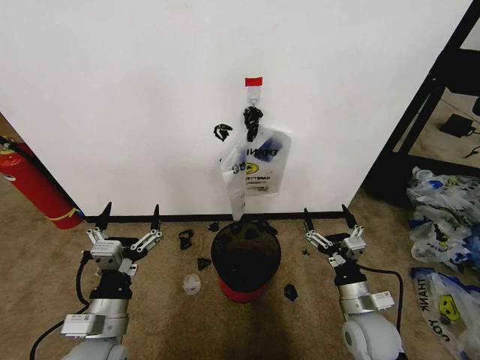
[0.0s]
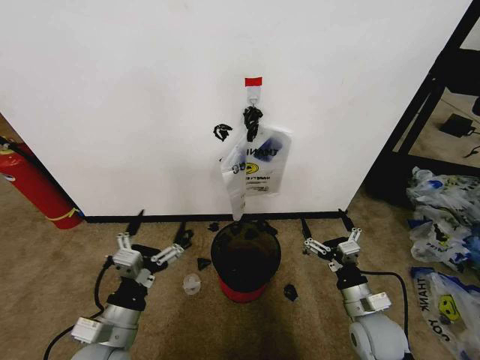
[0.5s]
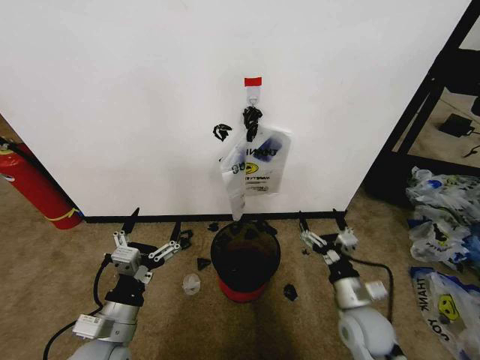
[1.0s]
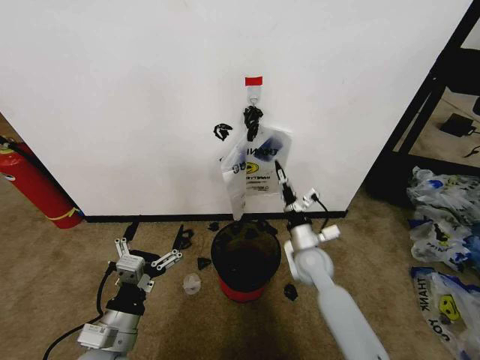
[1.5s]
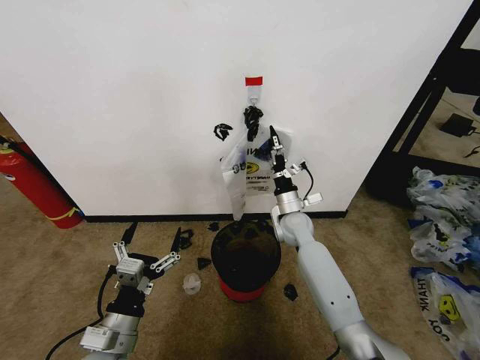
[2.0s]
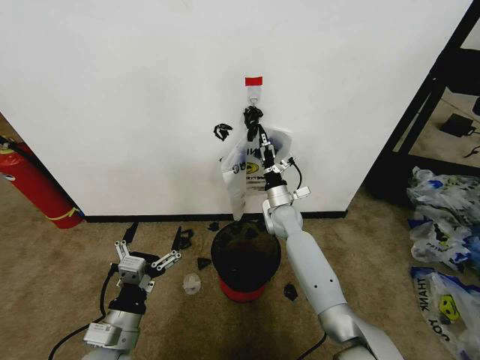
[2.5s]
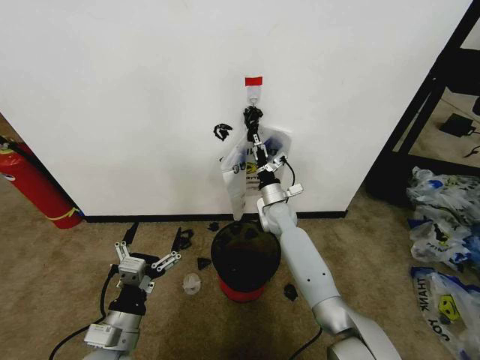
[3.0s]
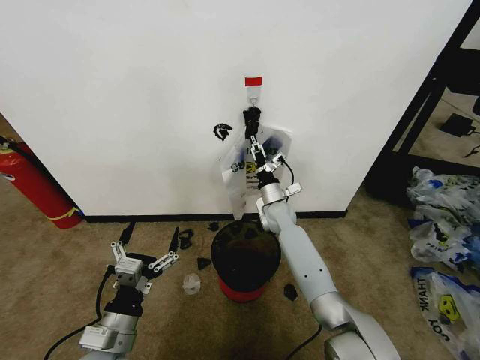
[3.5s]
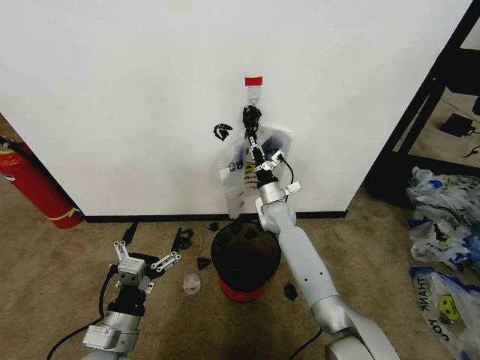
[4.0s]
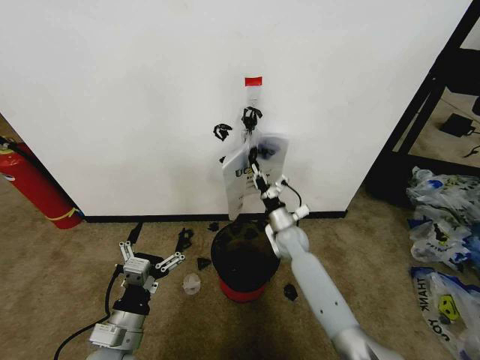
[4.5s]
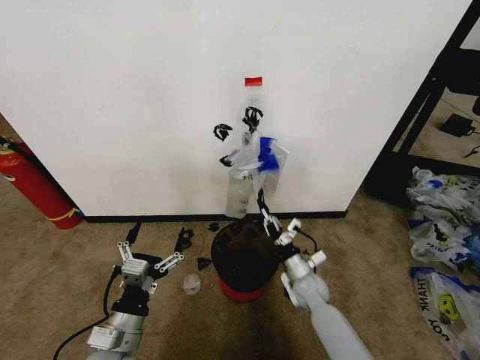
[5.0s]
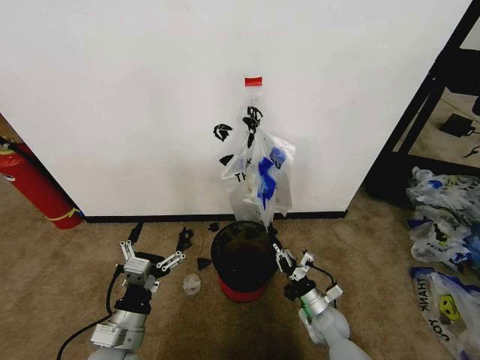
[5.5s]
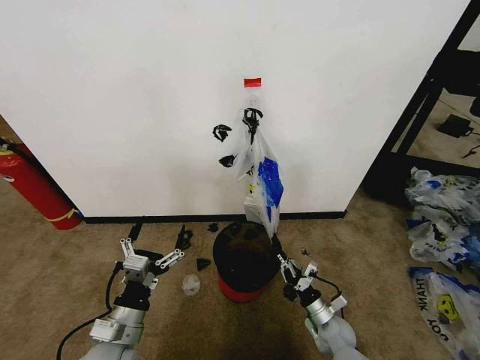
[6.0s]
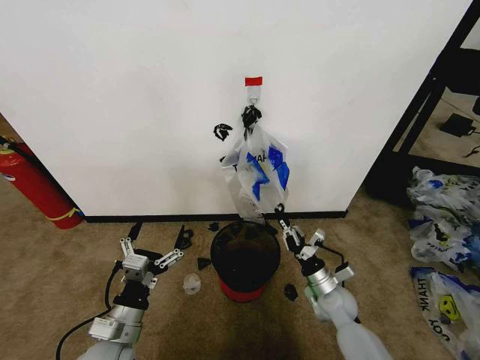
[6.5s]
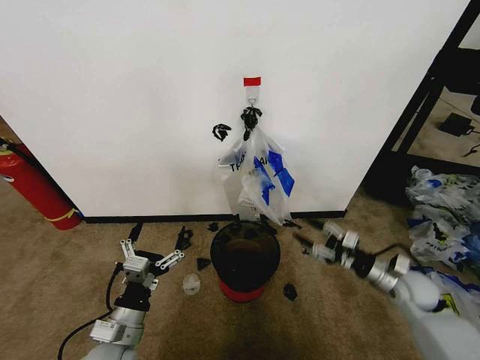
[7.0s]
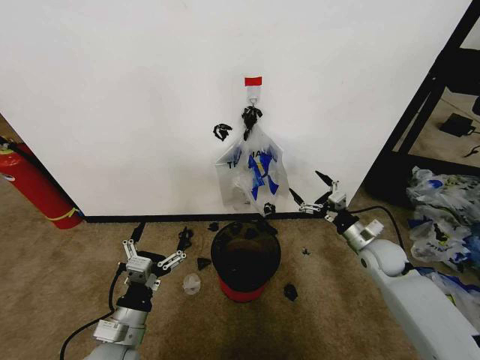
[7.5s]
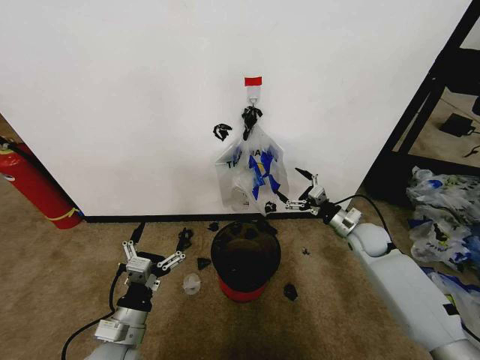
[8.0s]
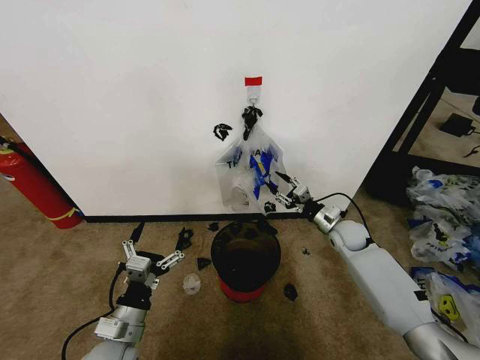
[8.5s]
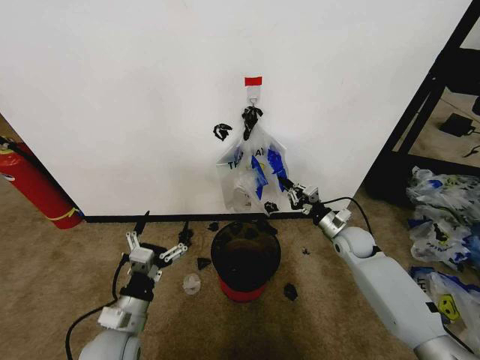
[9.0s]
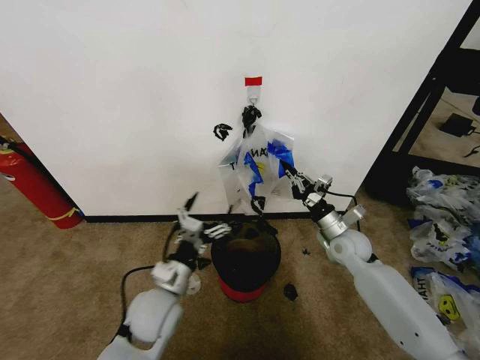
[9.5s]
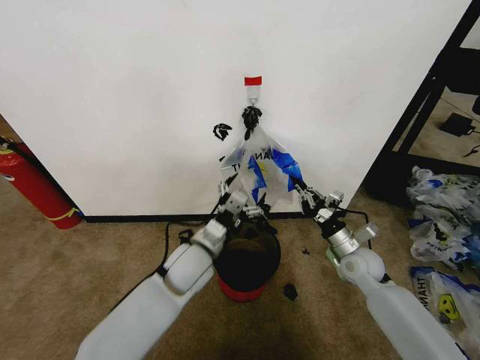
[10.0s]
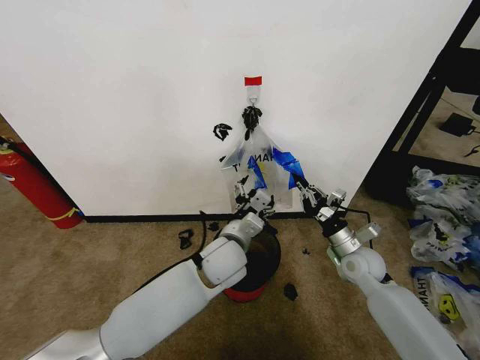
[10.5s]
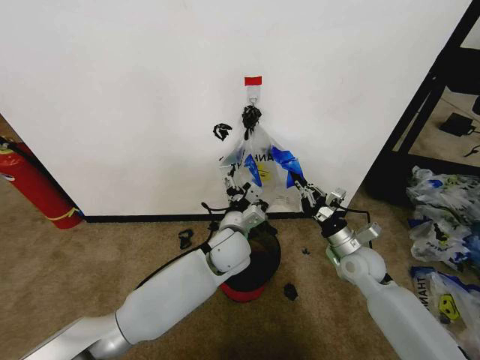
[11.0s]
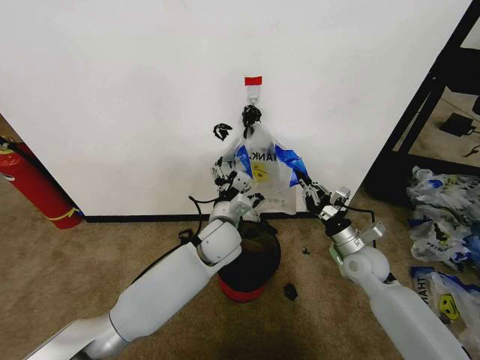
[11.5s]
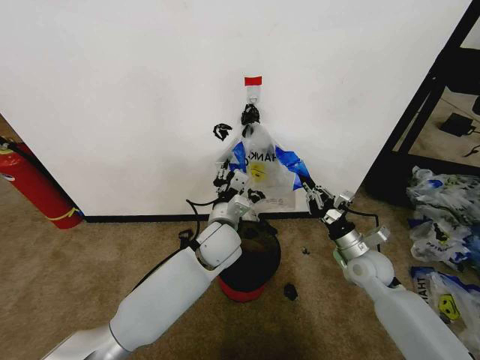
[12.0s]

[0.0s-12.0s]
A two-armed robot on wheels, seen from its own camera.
Task of the whole recording: Pick up the garbage bag from the wall and place it over the trash bin.
2.0s to 4.0s: The right gripper ends up some 5 cm from where it was, and closes.
4.0s to 6.0s: The right gripper heads backward, downward and to the right, covering roughly 35 cm.
6.0s to 8.0s: The right gripper moves upward and forward, some 25 cm, and opens up.
8.0s to 10.0s: The right gripper is displaced backward by some 5 cm, and closes its fingers; the left gripper goes roughly 20 cm forward and to the right.
10.0s to 12.0s: The left gripper travels to the right by roughly 5 cm, and closes its fingers.

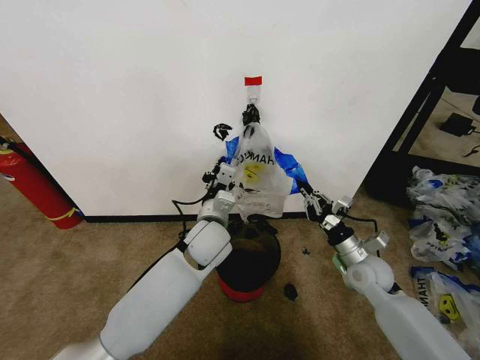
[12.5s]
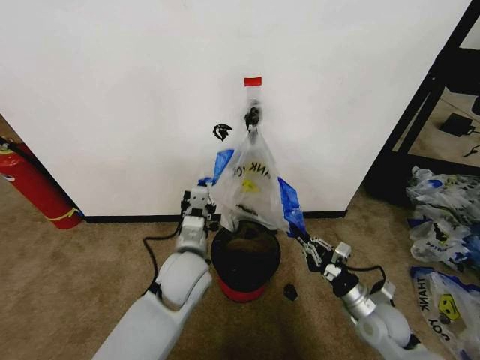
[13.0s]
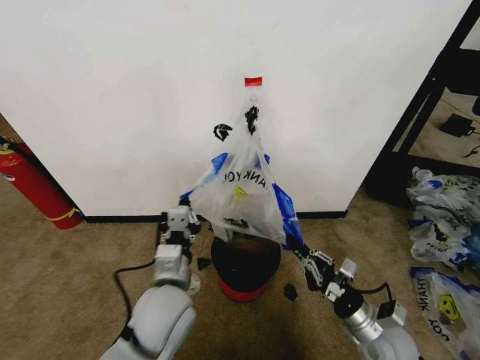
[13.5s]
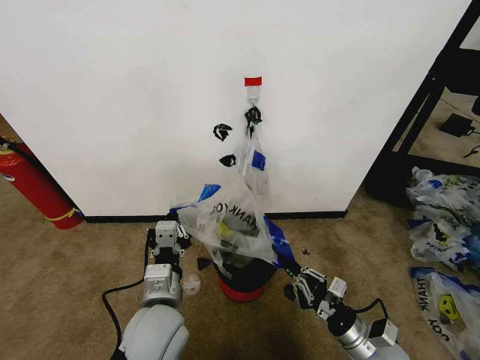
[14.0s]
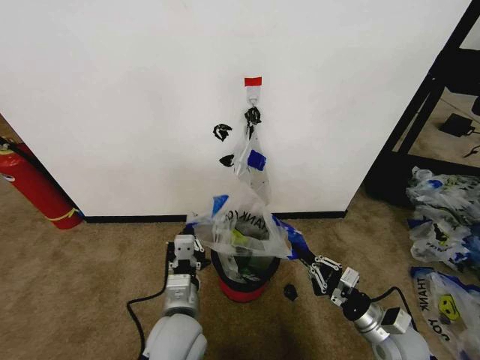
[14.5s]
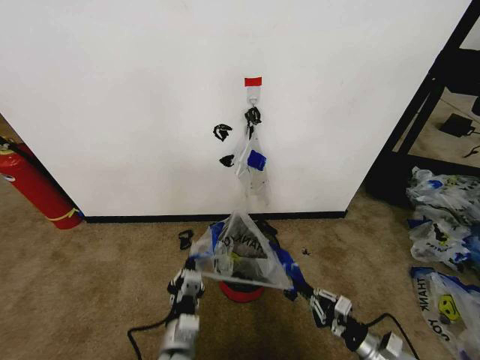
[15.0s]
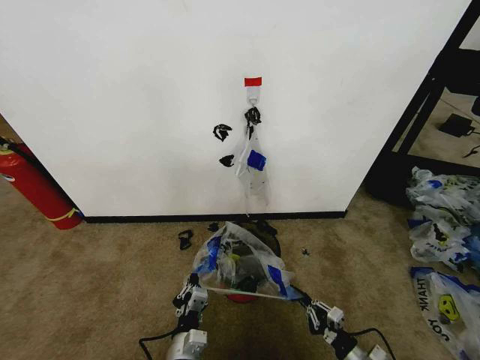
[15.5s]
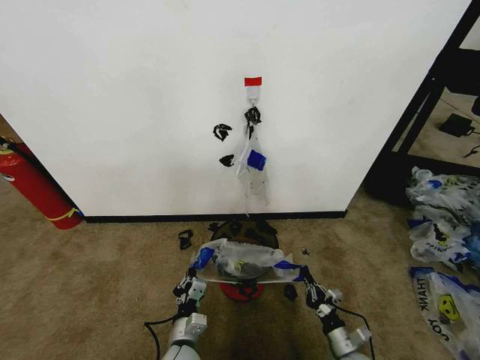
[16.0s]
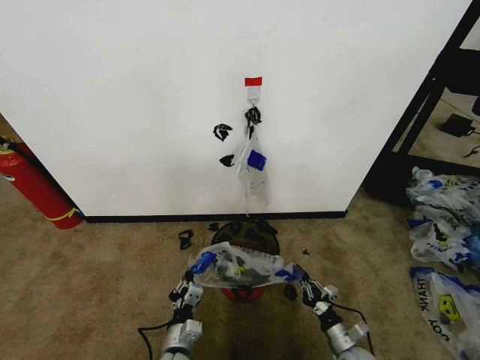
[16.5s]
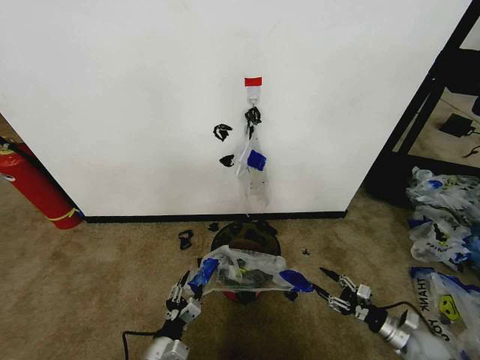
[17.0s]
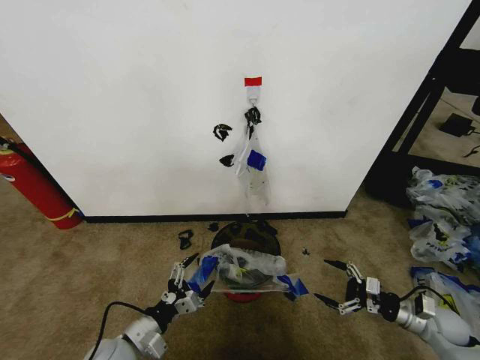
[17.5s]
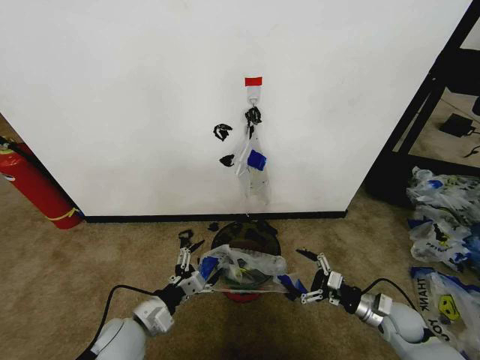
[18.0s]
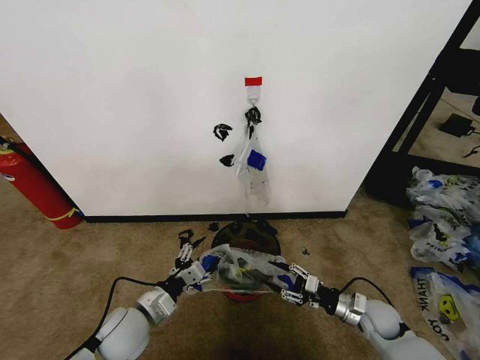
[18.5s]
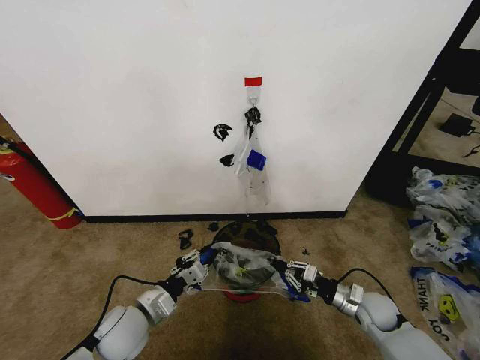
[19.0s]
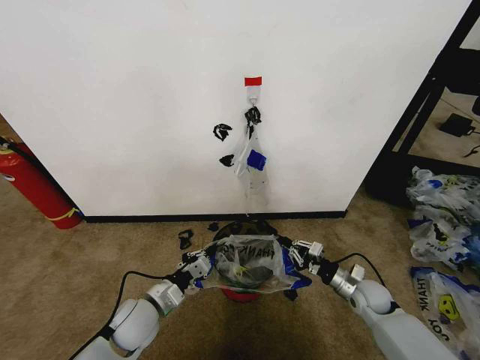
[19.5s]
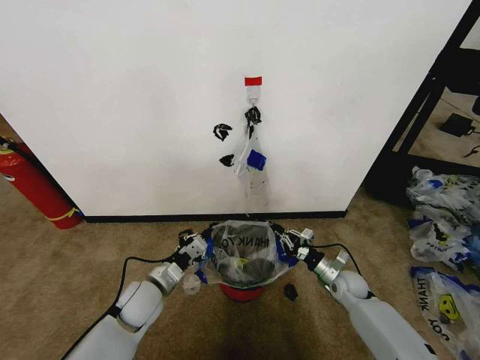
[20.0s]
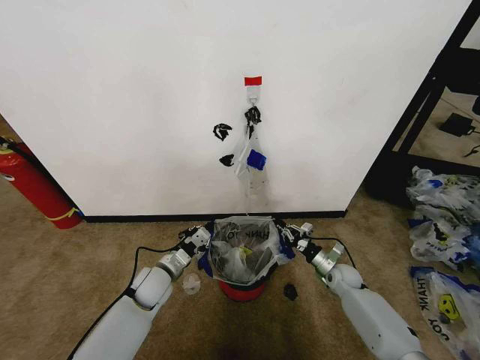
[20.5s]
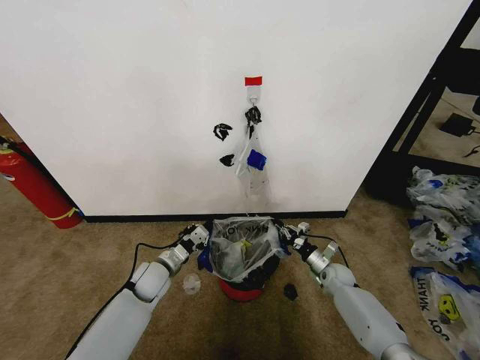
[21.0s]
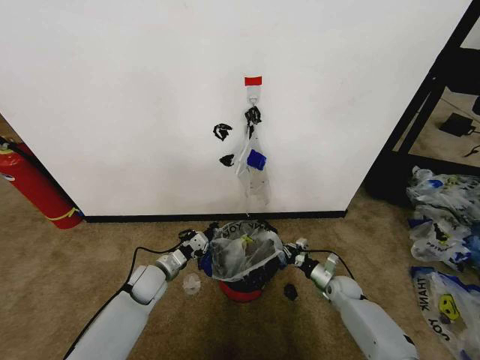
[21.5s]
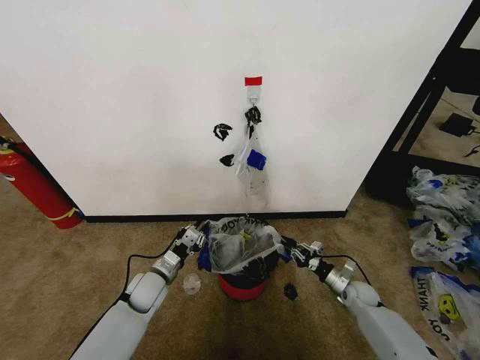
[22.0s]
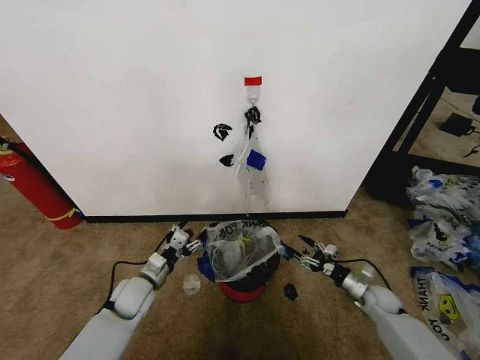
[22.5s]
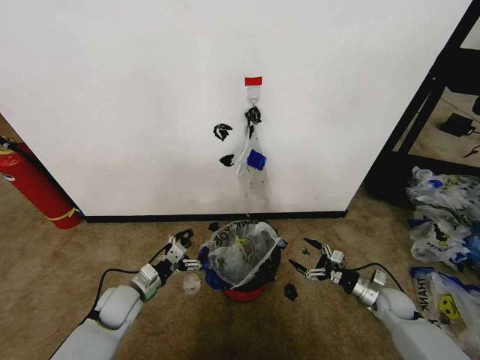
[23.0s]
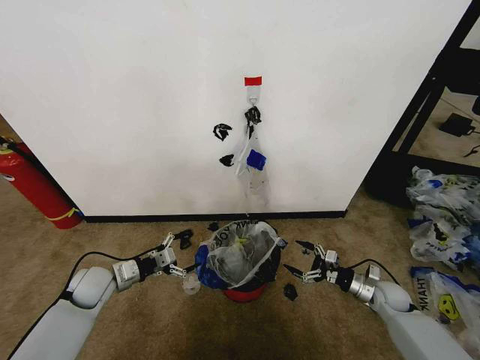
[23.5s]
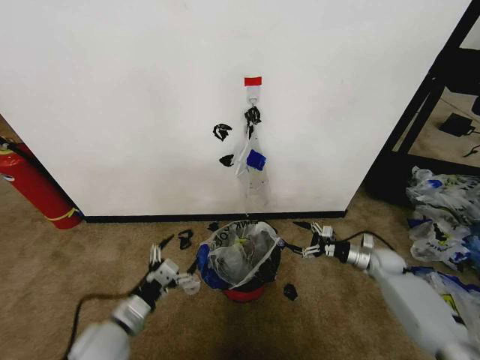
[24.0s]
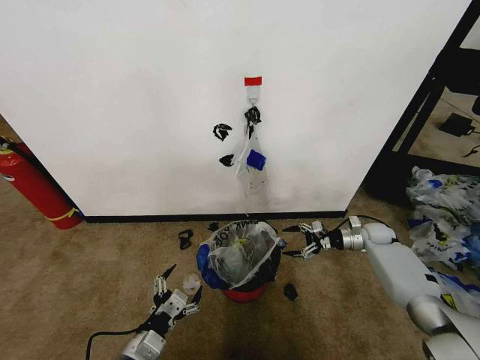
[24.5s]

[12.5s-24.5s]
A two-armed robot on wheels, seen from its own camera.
Task of the whole recording: Pick up the garbage bag from the wall and place it over the trash bin.
12.5s to 14.5s: The grippers both shift backward by approximately 15 cm.
14.5s to 16.5s: Both grippers move downward, some 15 cm.
16.5s to 18.5s: The right gripper heads upward and forward, covering about 15 cm, moves roughly 15 cm to the right and comes back, and opens up. The left gripper travels upward, to the left and forward by some 15 cm, and opens its fingers.
18.5s to 20.5s: The grippers both shift forward by roughly 10 cm. The left gripper closes up. The right gripper closes its fingers.
20.5s to 22.5s: The left gripper ends up roughly 5 cm from where it was, and opens up, while the right gripper is displaced to the right and backward by approximately 10 cm, and opens up.
22.5s to 24.5s: The left gripper is displaced backward by approximately 20 cm; the right gripper moves forward and upward, about 20 cm.

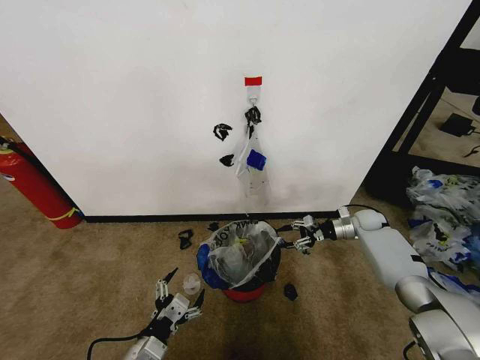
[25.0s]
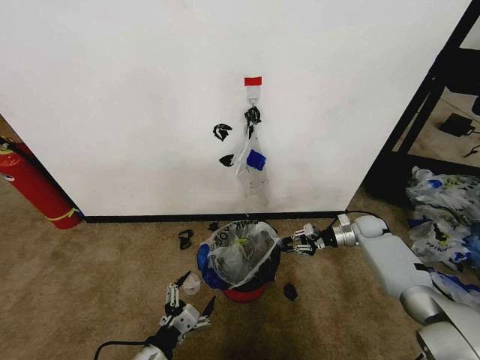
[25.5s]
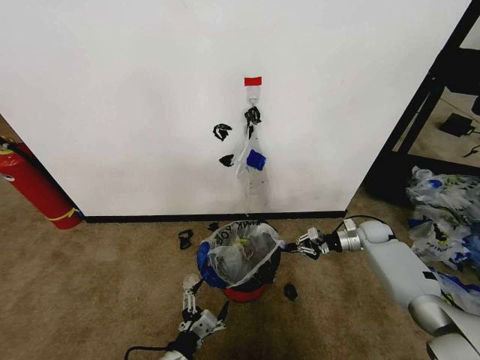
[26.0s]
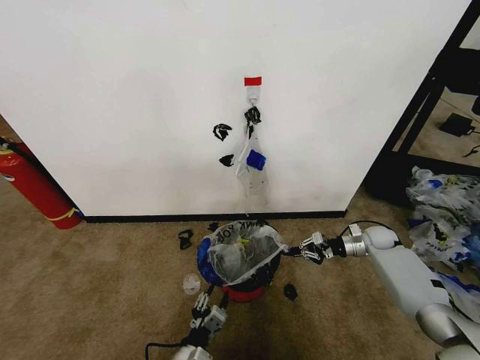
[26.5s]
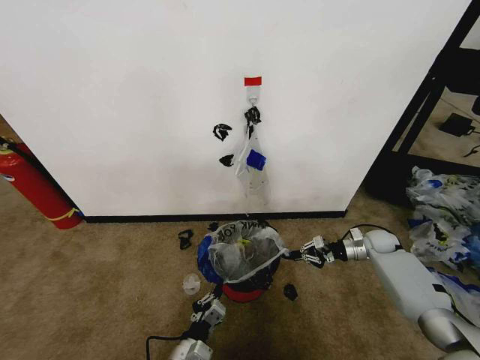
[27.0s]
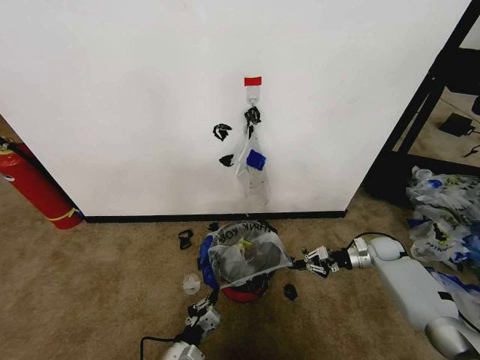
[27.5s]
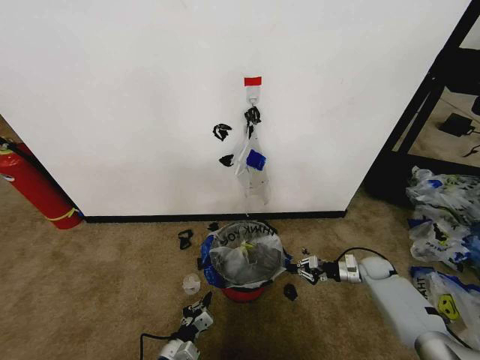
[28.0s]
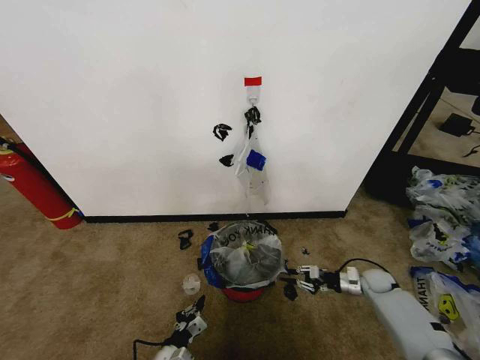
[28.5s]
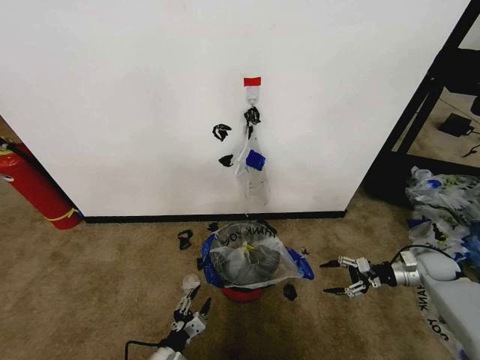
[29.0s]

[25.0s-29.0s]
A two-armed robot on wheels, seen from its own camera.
Task of the whole recording: Pick up the garbage bag from the wall and place it over the trash bin.
25.0s to 27.0s: The right gripper travels backward by approximately 5 cm, and closes its fingers; the left gripper shifts approximately 10 cm to the right and downward, and closes its fingers.
27.0s to 29.0s: The left gripper shifts about 5 cm to the left, and opens its fingers. Meanwhile the right gripper heads to the right and backward, covering about 15 cm, and opens.
